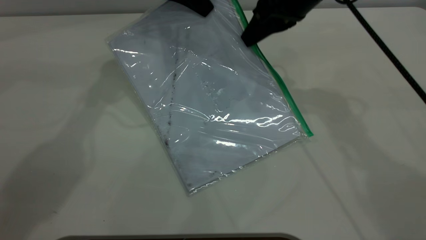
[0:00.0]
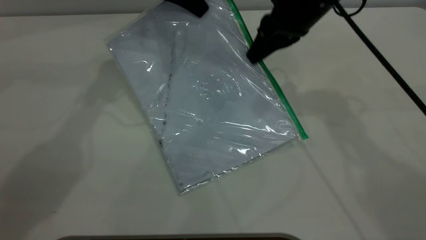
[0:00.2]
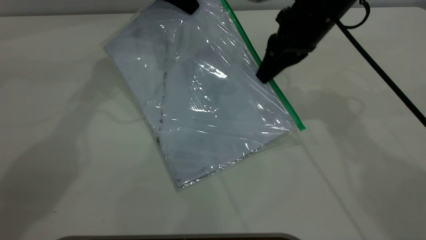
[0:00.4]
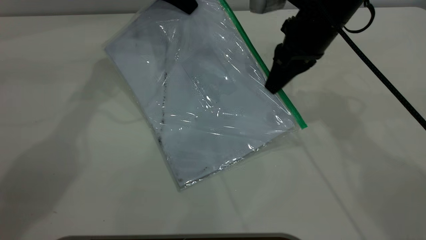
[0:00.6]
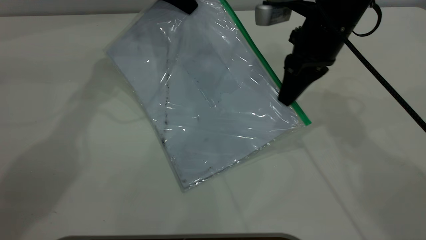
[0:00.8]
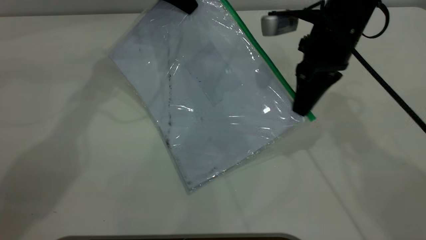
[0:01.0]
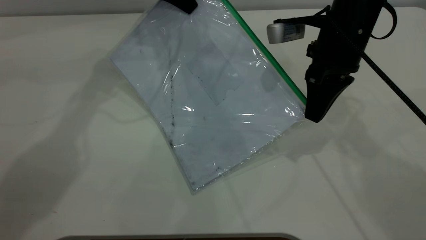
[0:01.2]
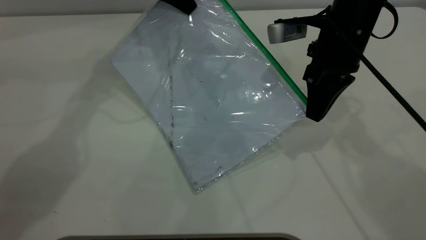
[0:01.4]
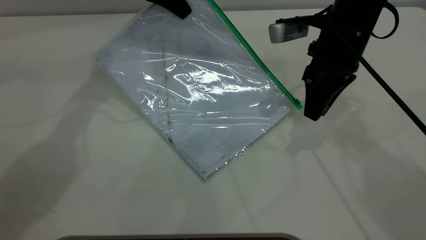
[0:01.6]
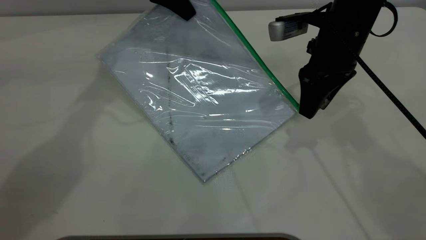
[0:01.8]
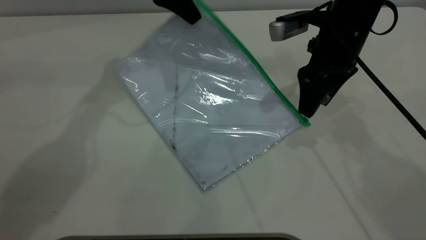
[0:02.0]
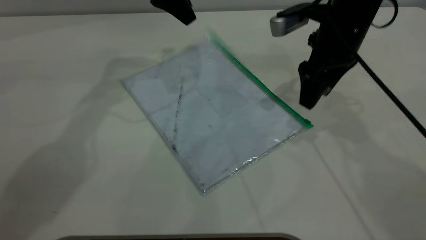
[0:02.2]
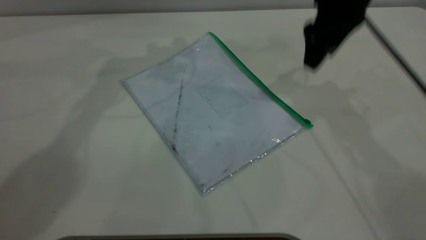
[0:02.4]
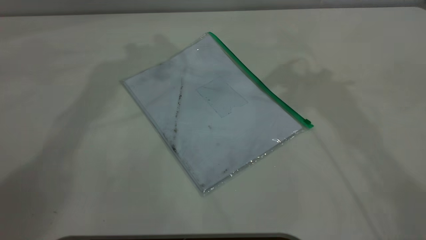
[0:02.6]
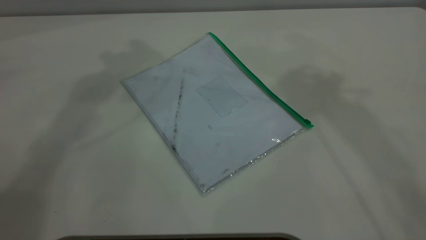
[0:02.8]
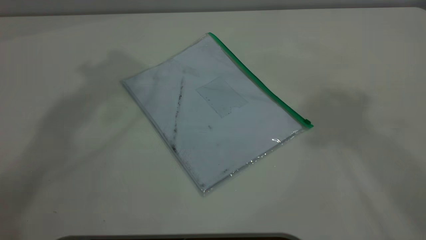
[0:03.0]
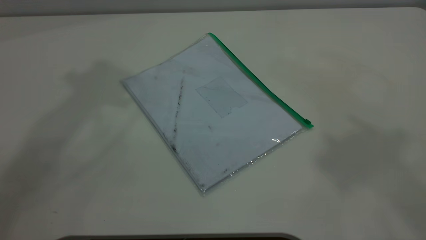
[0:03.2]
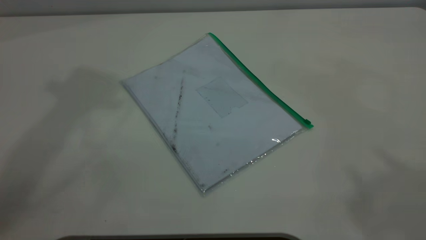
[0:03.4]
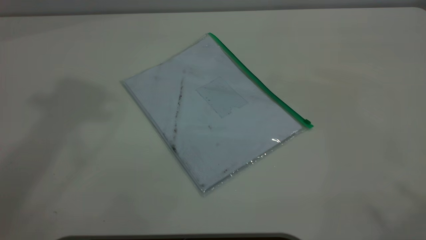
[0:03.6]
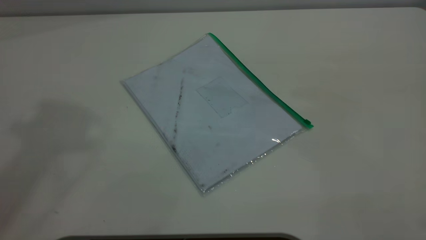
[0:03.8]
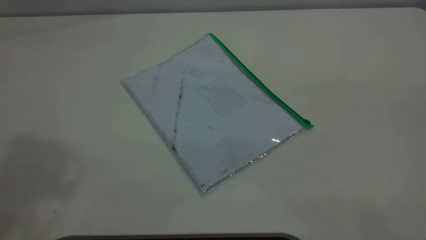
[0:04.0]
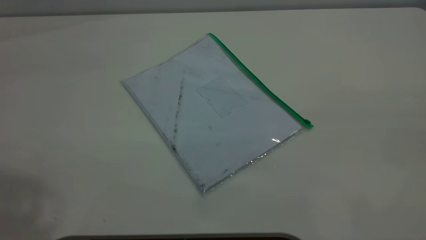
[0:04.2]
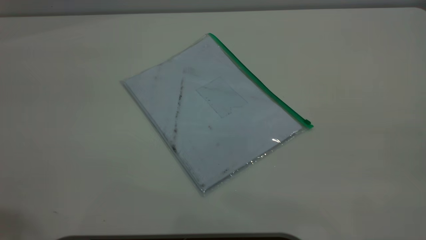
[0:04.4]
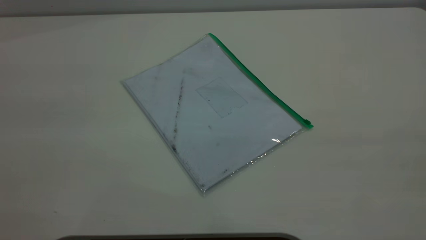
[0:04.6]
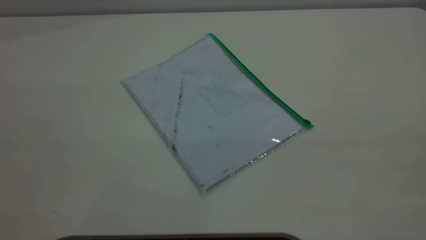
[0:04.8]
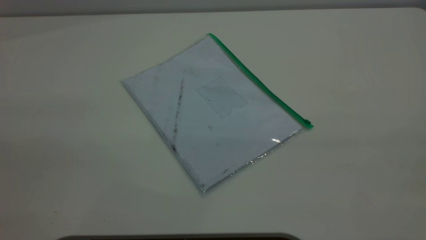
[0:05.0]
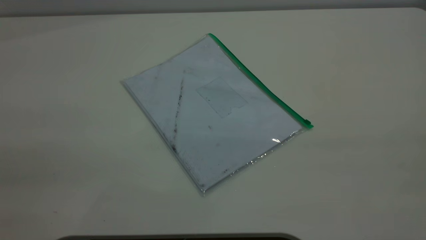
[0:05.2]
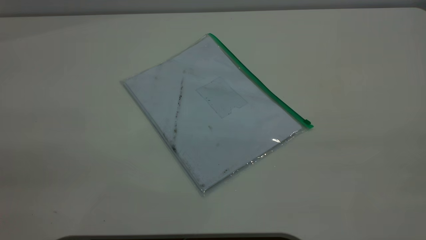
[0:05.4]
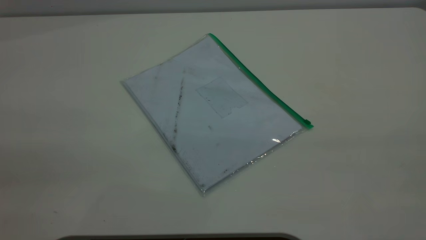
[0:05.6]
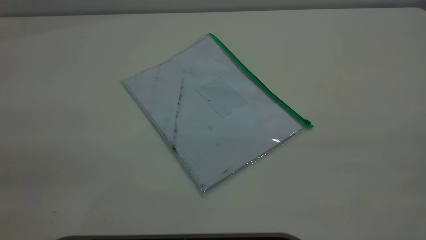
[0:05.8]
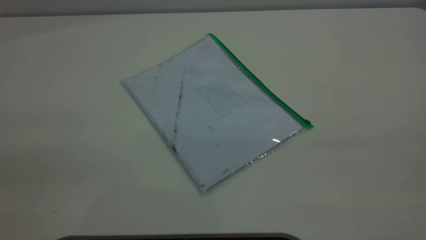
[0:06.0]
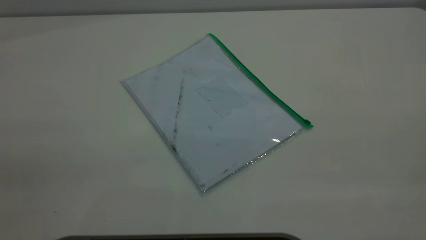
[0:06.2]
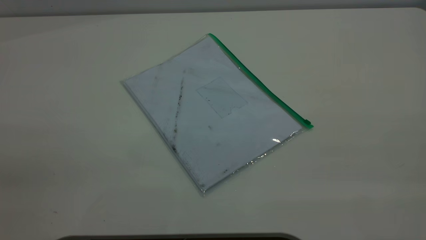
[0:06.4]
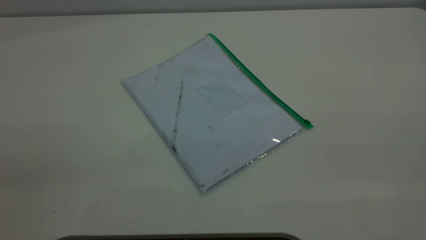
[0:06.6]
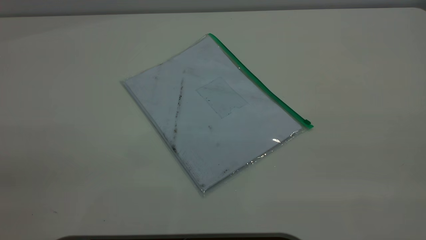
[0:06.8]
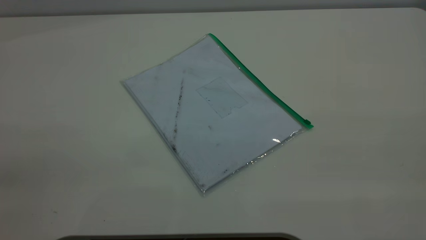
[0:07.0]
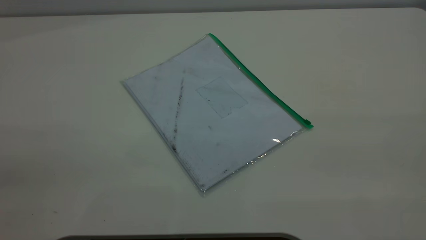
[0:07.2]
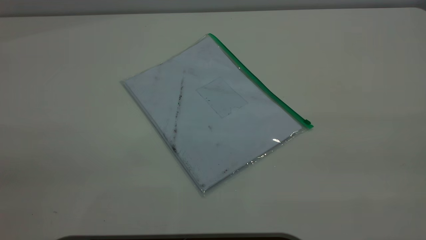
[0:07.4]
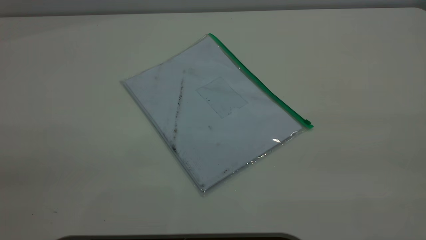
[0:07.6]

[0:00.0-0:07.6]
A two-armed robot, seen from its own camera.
Step, 0:01.6 to 0:02.2: Place the transparent plastic bag.
0:00.0 to 0:01.6: The right gripper changes place by about 5 cm, and opens.
0:01.6 to 0:03.0: Both grippers travel together upward, approximately 35 cm. The left gripper opens its fingers, while the right gripper opens up.
